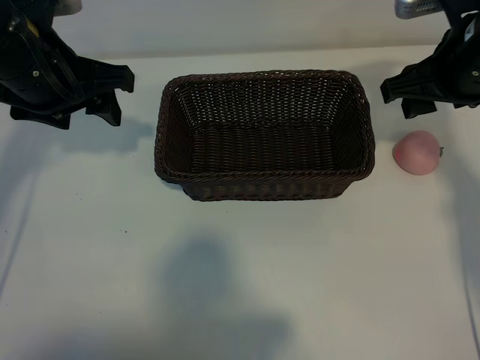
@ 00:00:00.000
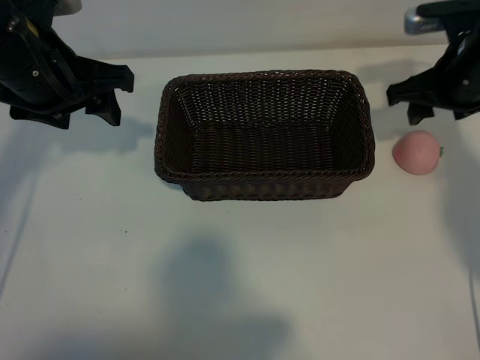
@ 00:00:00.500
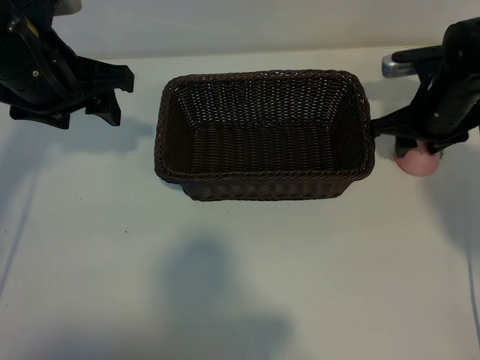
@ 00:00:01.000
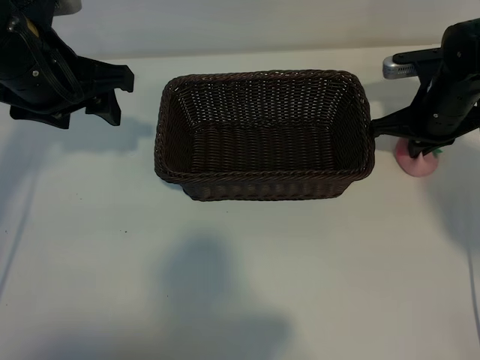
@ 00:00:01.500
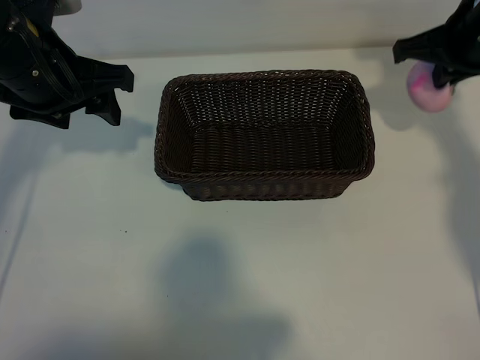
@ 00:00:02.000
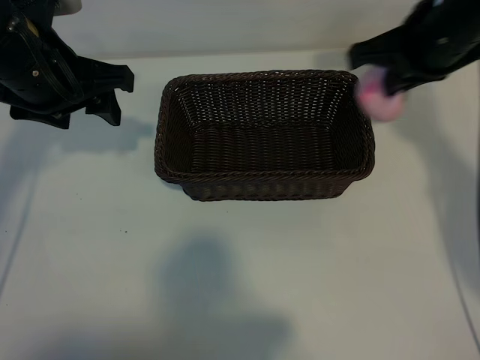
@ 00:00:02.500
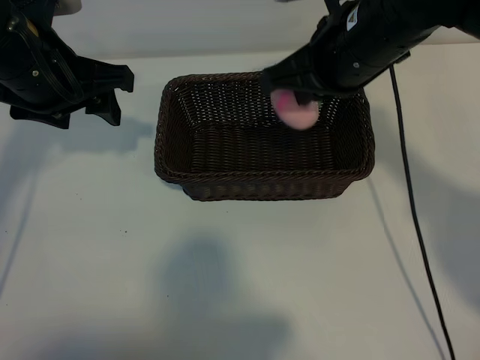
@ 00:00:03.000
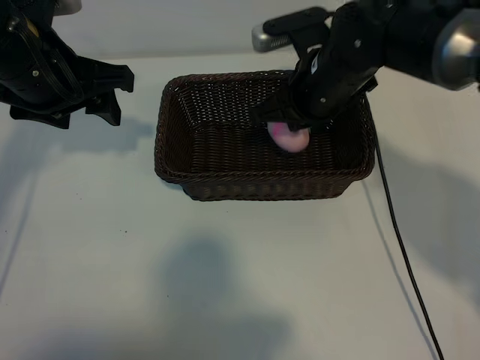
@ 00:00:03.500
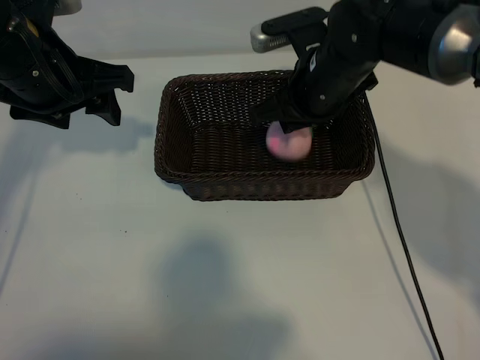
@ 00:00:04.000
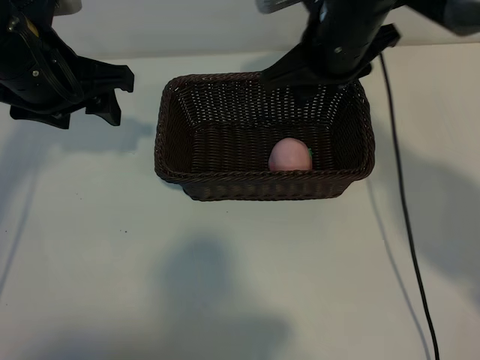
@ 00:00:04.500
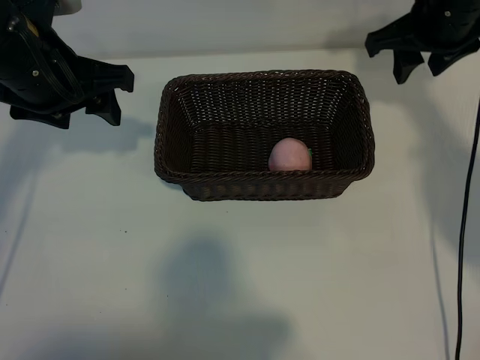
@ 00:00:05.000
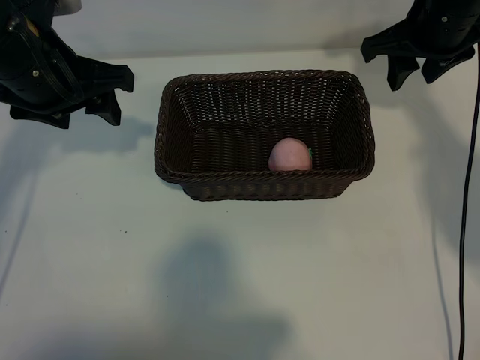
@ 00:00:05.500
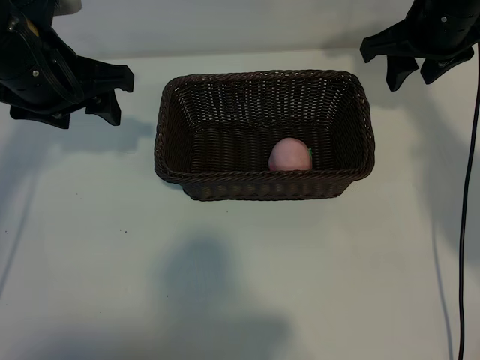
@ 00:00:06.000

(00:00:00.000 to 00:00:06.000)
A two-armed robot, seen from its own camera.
Task of the whole recording: pick up the peach and put it into the basket.
Step, 00:00:02.000 - 00:00:04.000: Place the peach in the basket with right gripper.

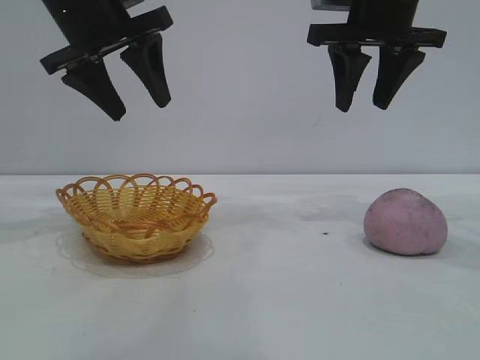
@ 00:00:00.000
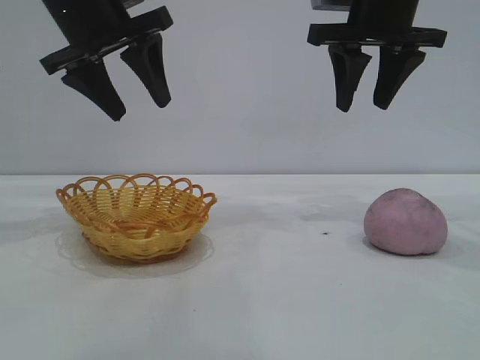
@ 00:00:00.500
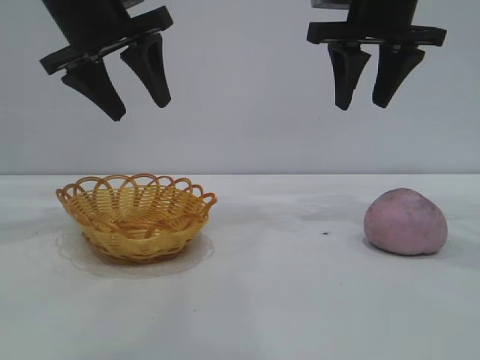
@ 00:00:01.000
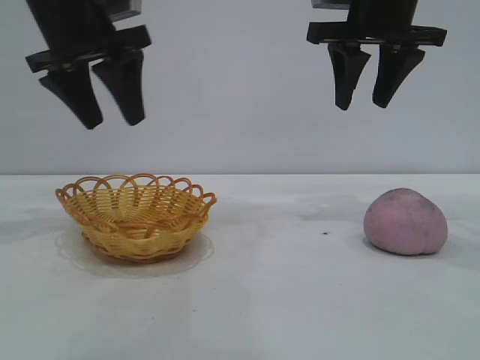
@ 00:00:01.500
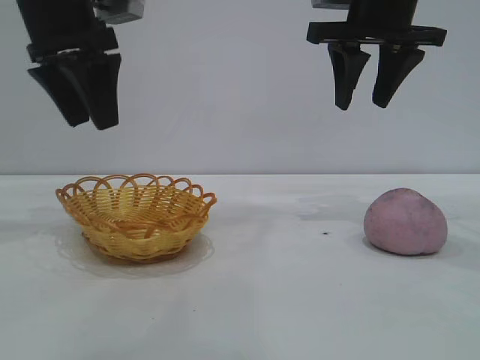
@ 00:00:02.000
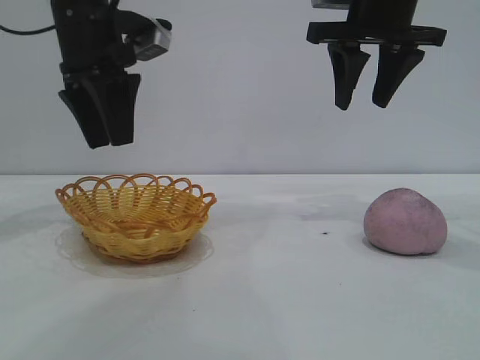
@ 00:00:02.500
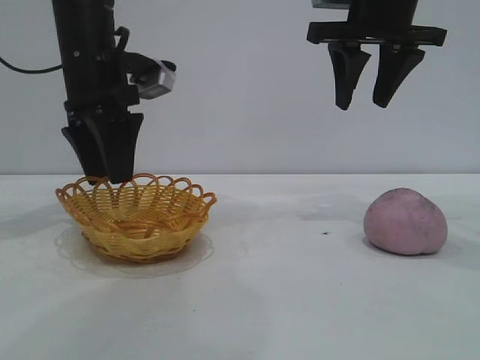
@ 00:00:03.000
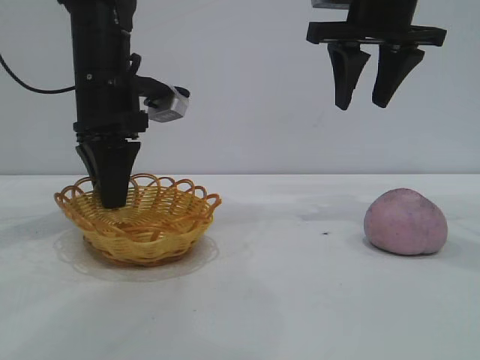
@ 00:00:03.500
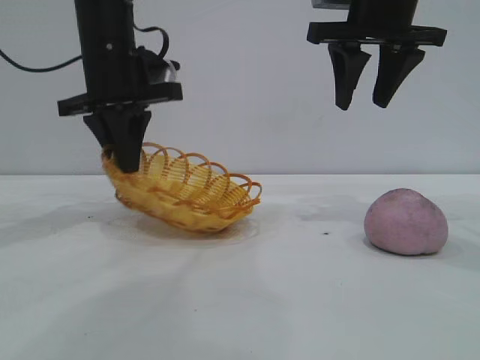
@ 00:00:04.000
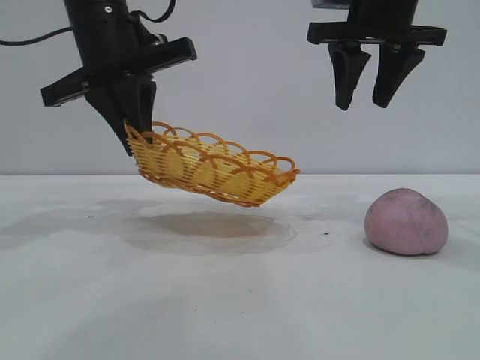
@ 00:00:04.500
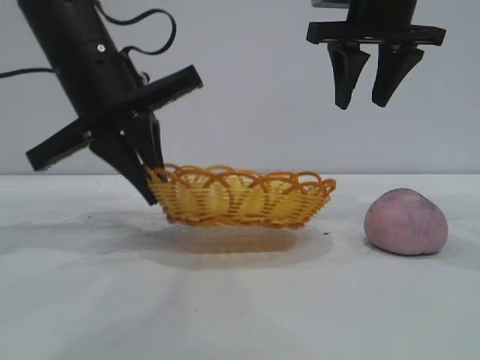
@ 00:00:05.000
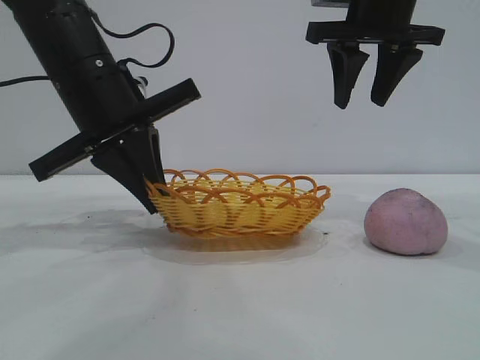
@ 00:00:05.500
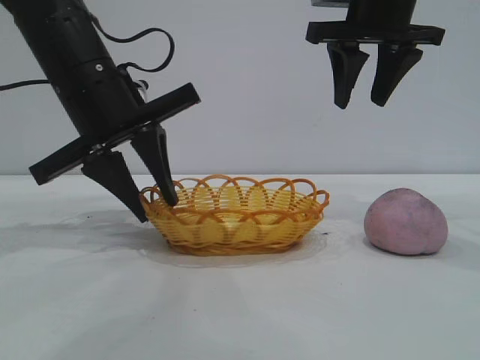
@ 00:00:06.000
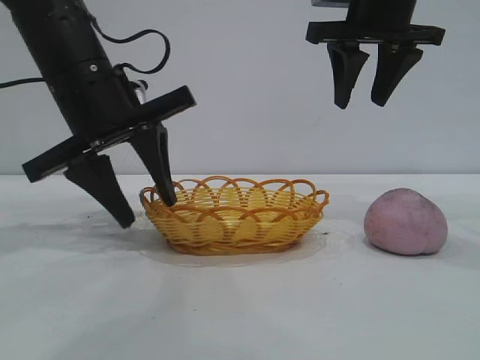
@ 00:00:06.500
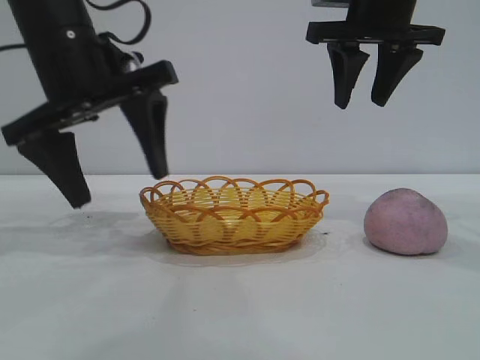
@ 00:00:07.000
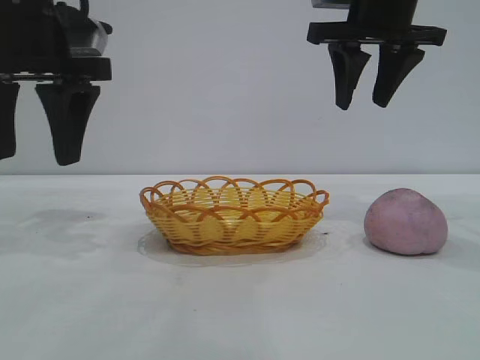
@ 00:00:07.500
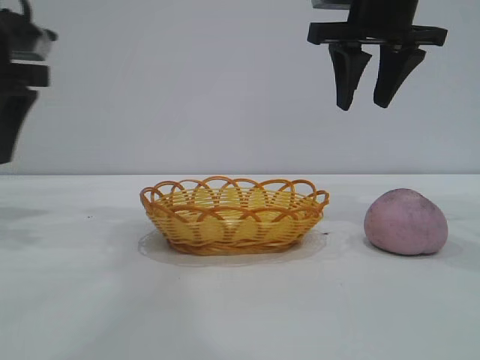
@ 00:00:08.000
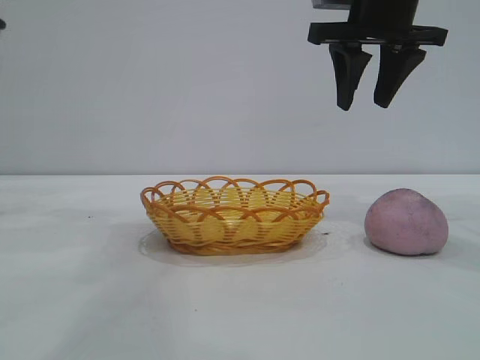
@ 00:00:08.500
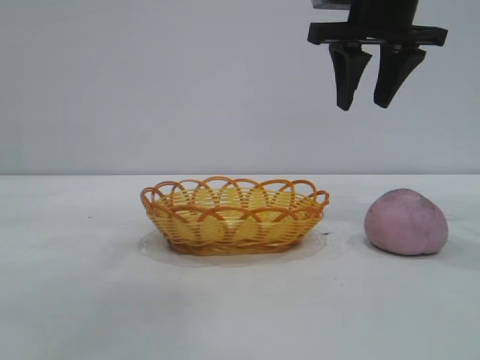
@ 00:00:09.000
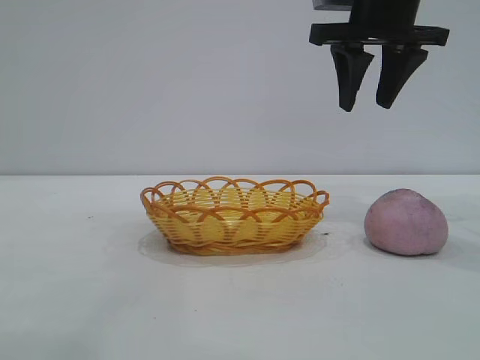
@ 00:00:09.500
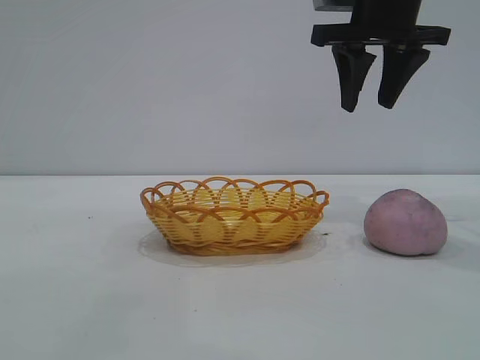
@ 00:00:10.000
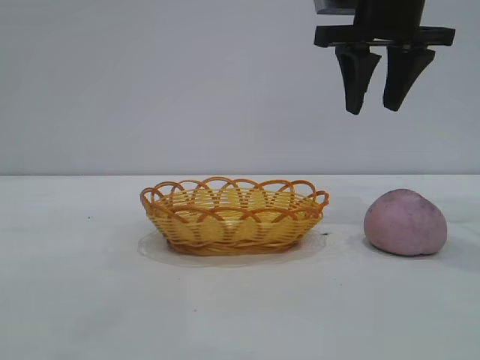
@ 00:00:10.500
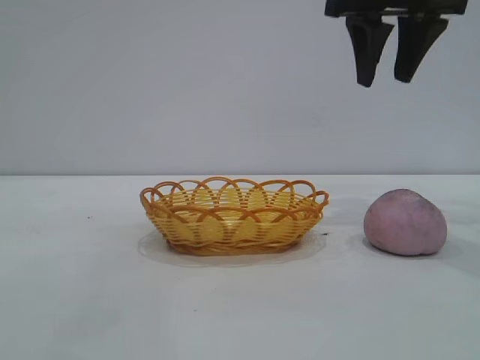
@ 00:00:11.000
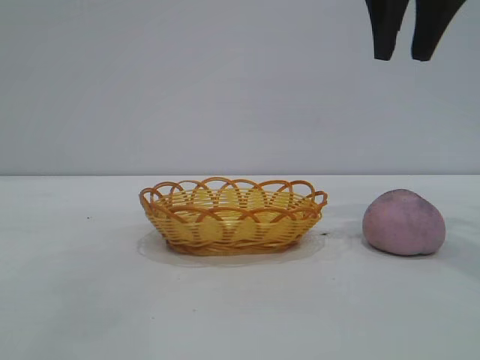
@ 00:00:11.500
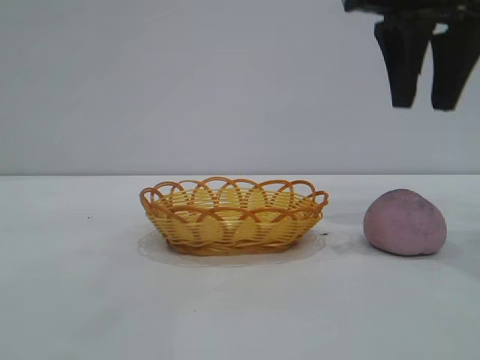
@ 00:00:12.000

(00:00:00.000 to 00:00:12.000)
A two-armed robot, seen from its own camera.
Task of the whole recording: pick up the peach and put it into the basket.
Step, 00:00:00.000 - 00:00:07.000: Move the basket to the center of view.

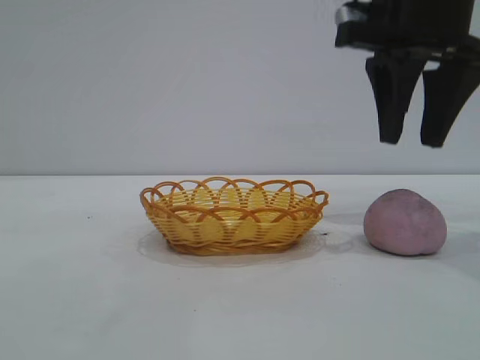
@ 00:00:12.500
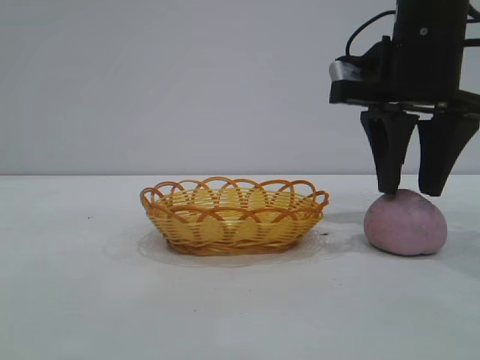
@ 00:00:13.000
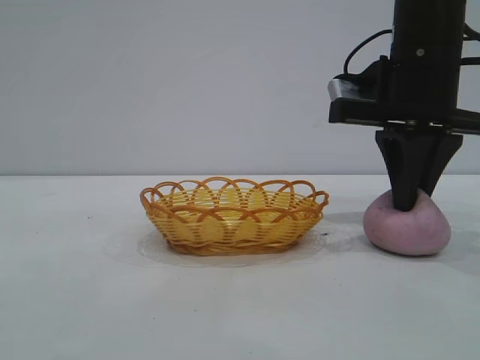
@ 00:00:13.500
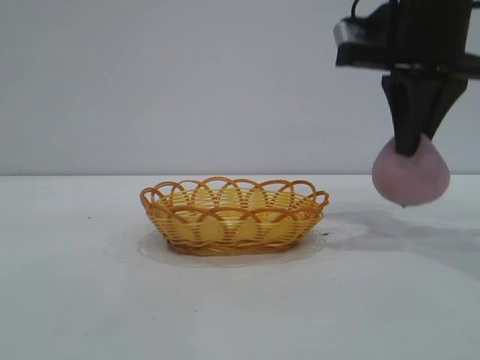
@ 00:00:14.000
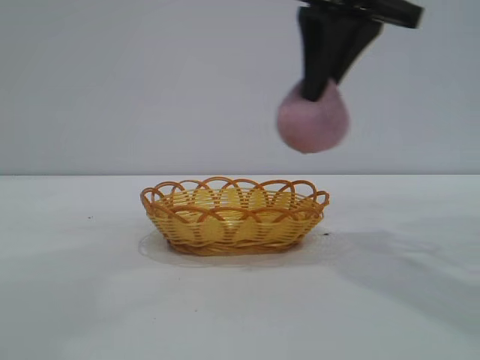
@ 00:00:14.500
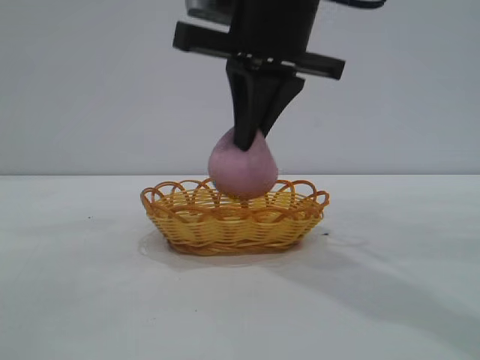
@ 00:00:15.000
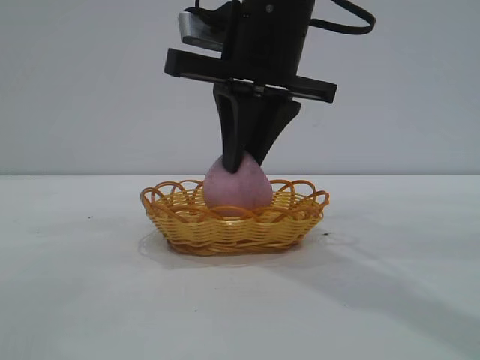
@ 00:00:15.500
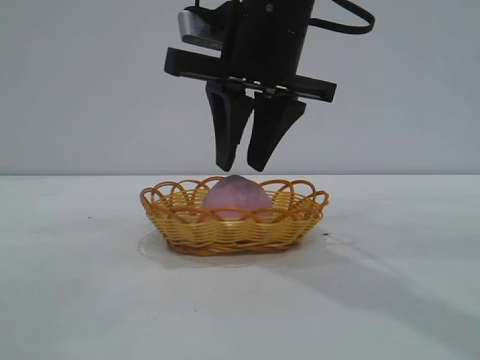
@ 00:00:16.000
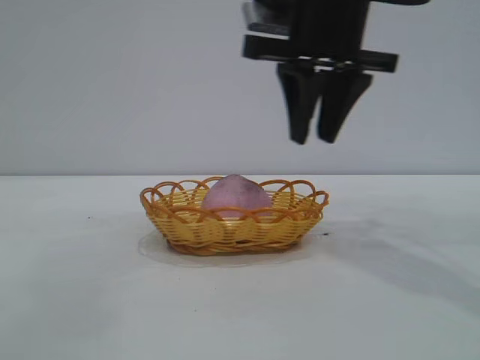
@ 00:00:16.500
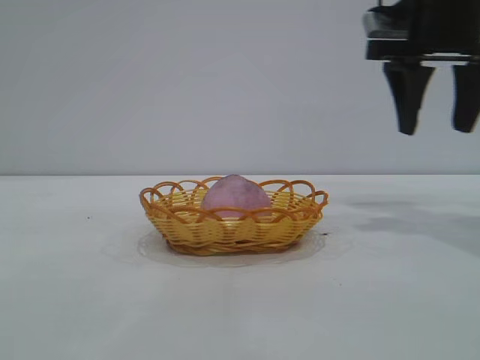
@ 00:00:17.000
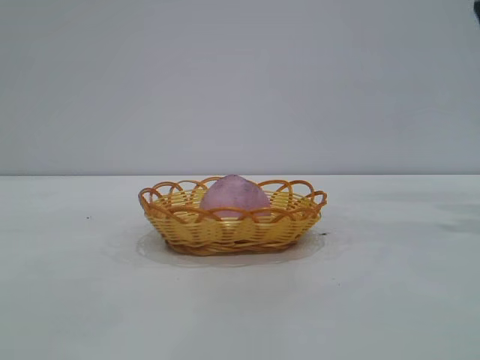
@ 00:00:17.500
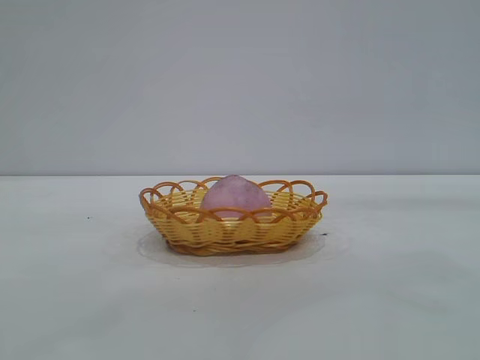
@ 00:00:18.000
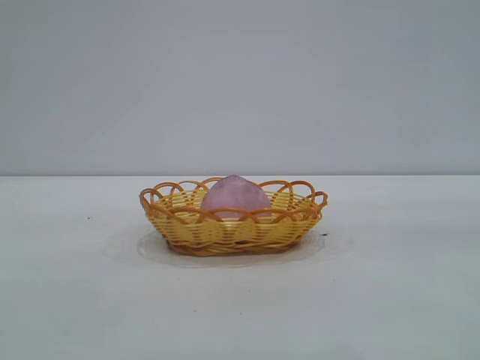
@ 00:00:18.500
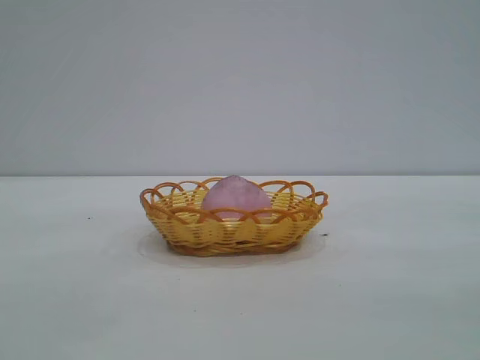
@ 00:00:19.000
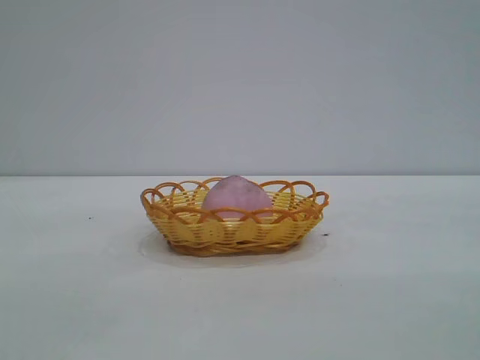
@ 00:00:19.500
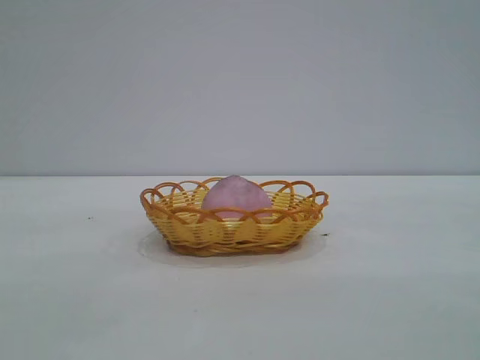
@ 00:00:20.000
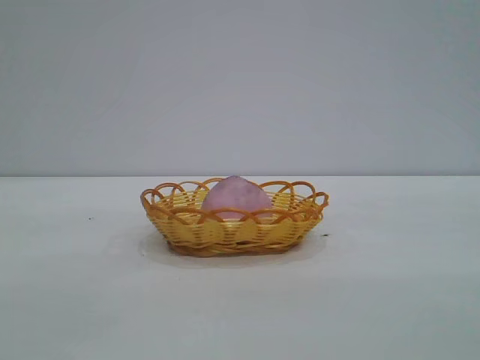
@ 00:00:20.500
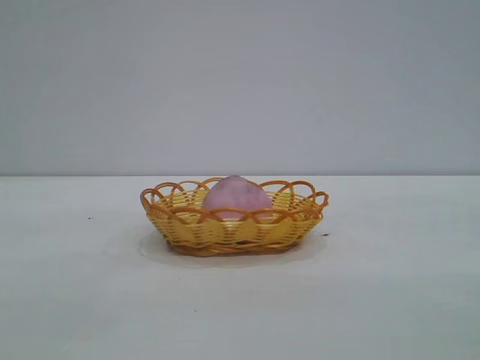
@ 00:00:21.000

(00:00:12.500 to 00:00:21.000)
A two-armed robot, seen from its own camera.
Task of the whole recording: pick up the peach and put it into the basket.
Step, 00:00:14.500 - 00:00:16.000: place the peach into the basket.
